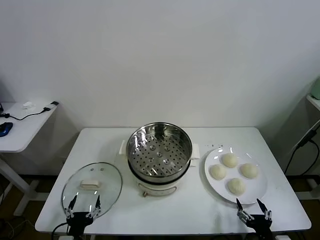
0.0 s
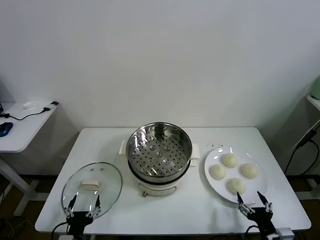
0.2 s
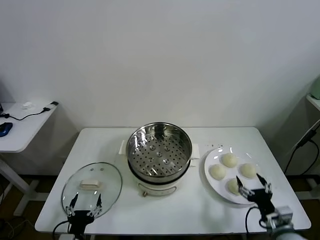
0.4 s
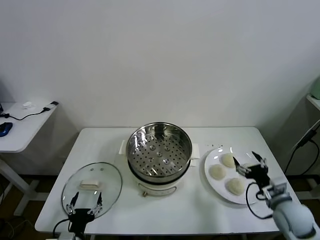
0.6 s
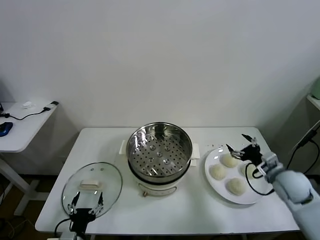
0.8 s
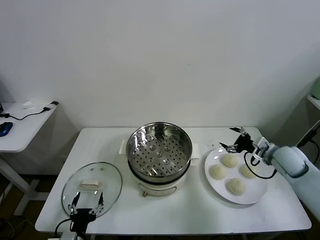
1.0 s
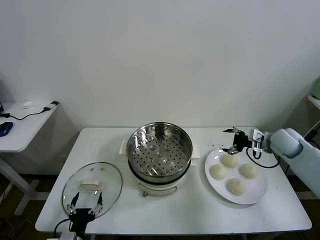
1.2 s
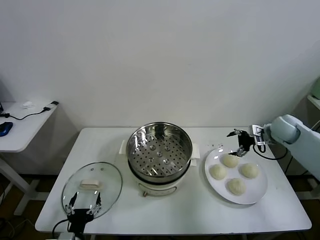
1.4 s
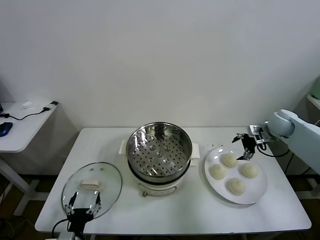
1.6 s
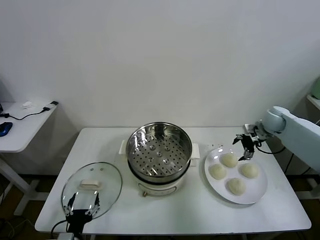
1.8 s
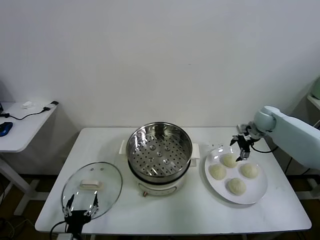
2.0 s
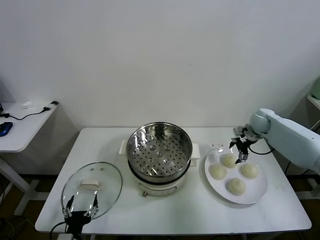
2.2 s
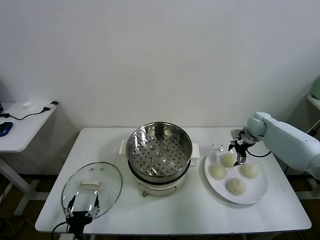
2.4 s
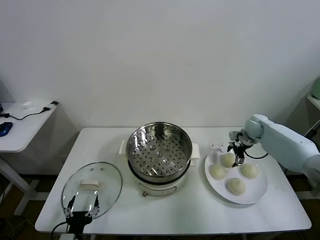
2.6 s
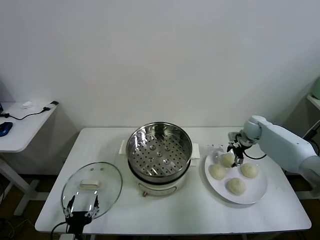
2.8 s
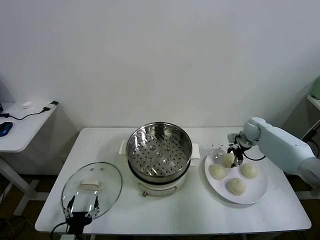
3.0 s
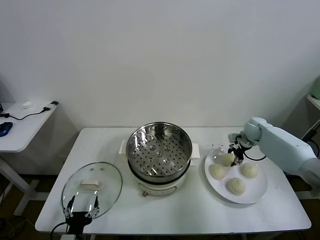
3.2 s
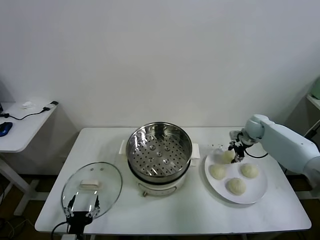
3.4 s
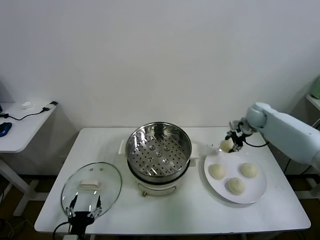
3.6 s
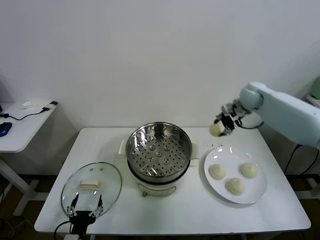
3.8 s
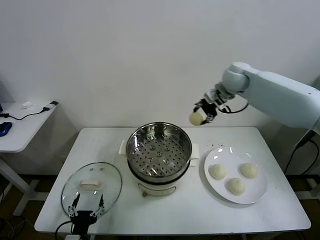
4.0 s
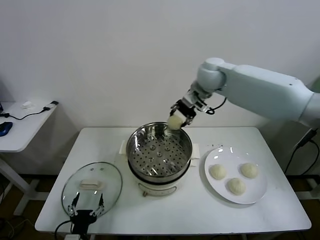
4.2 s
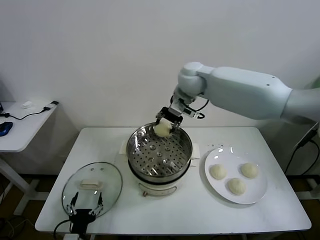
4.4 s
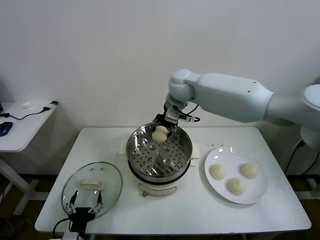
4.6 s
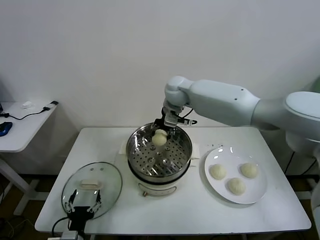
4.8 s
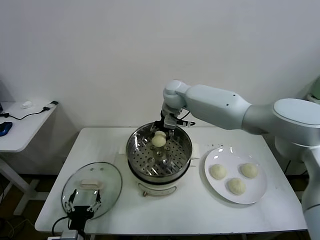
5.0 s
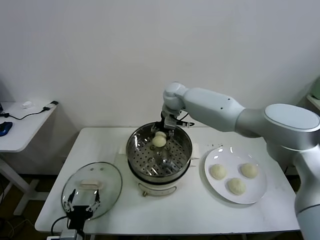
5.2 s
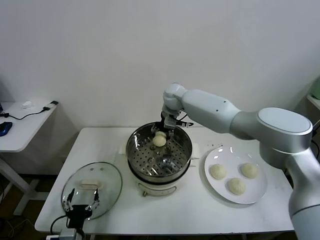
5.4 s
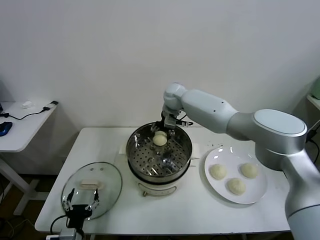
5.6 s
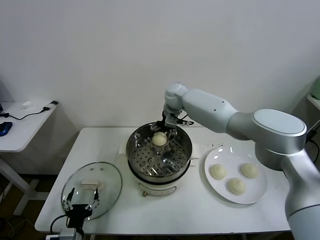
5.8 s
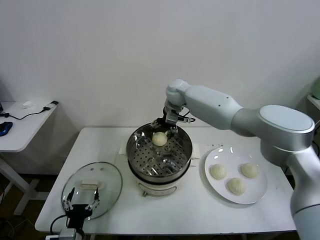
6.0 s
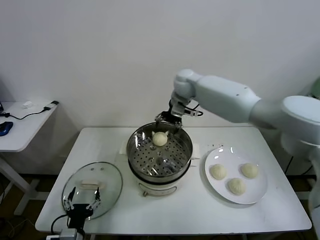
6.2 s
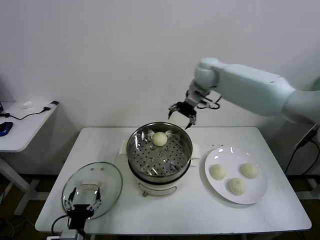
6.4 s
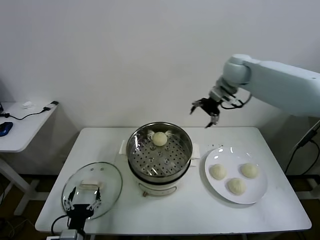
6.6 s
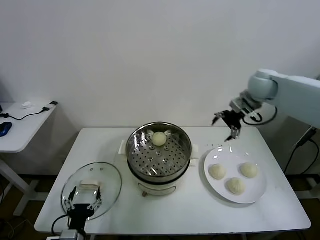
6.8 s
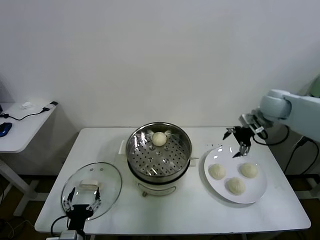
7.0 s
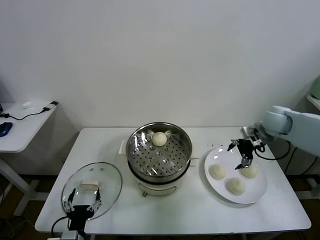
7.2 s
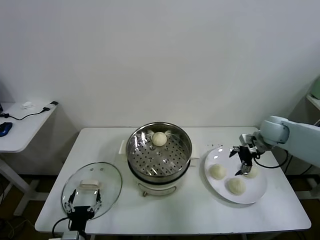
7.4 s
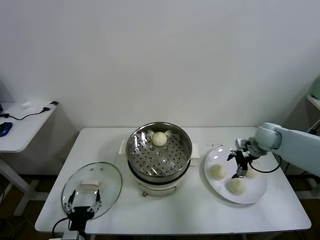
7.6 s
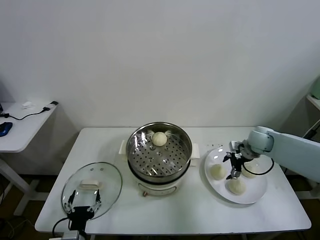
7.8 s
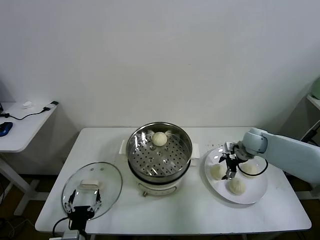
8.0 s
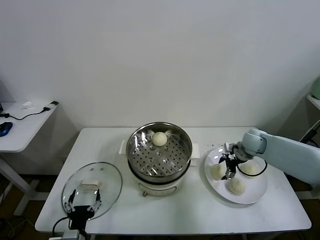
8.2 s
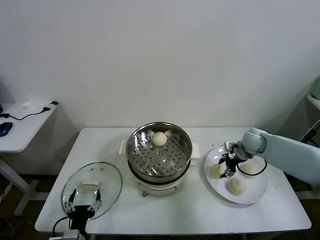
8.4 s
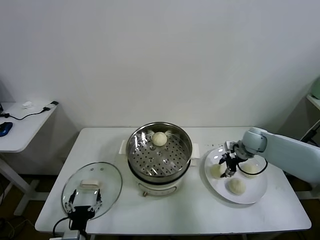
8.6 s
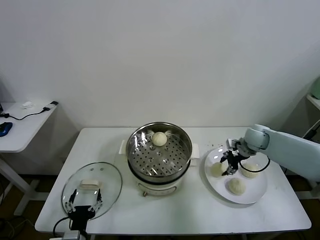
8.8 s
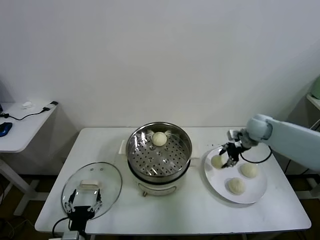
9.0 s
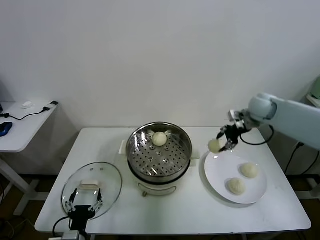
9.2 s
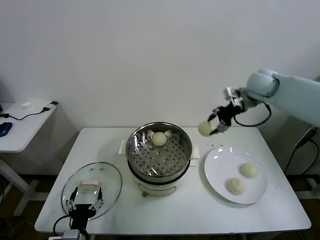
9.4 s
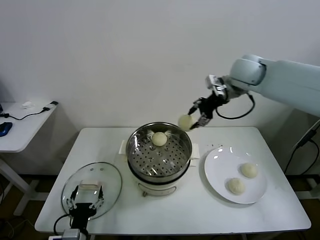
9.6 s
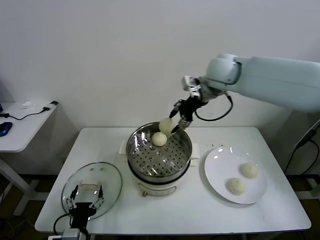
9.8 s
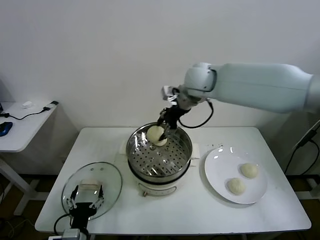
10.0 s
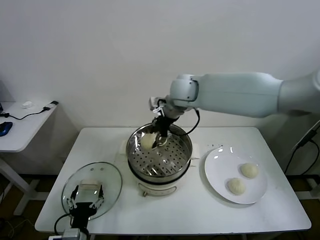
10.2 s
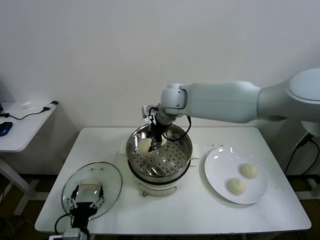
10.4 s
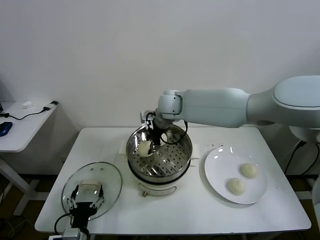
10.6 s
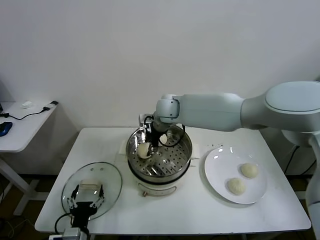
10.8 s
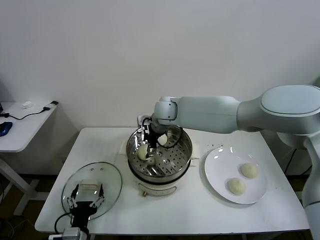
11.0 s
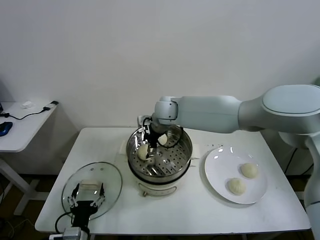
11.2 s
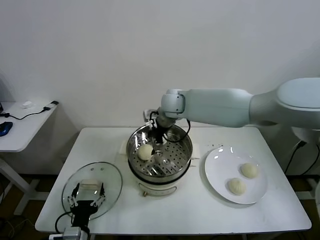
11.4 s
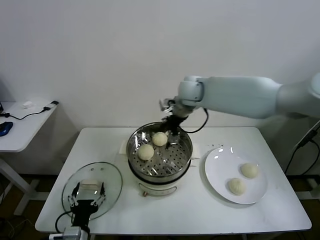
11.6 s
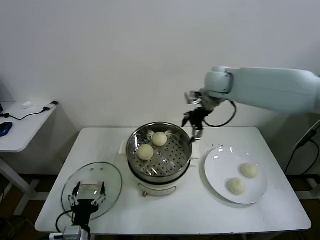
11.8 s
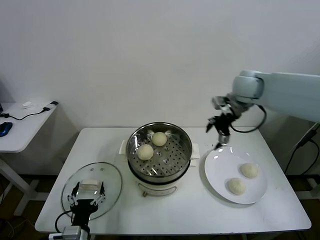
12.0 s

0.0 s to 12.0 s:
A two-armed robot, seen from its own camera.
Task of the whole recording: take steamed baozi put them in steamer.
Step, 0.0 to 3.0 s: Grasp the baozi in the plate with right gripper.
Step, 3.2 to 6.0 s: Place the baozi on the steamer with right gripper.
Step, 6.2 to 8.4 s: Grasp the baozi in the plate with right gripper.
Step, 8.6 to 11.2 s: Place the baozi on the steamer with right gripper.
1.6 to 3.0 s: The right gripper moves downward, approximately 10 cm, and closes.
3.0 to 4.4 s: The right gripper moves to the left and upward, roughly 40 cm.
4.4 to 6.0 s: The right gripper shifts some 10 cm downward and forward, and opens.
6.0 to 7.6 s: The right gripper shifts about 35 cm to the right, downward and backward.
7.6 to 9.0 s: The right gripper moves upward, approximately 5 cm, and closes.
9.0 to 10.4 s: The right gripper shifts roughly 30 cm to the left.
10.4 to 12.0 s: The right gripper goes some 25 cm to the right, and opens.

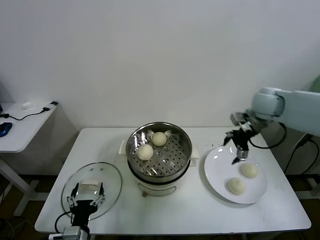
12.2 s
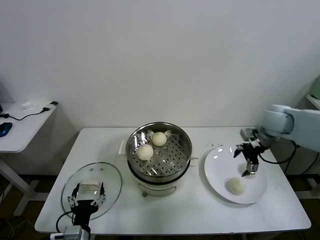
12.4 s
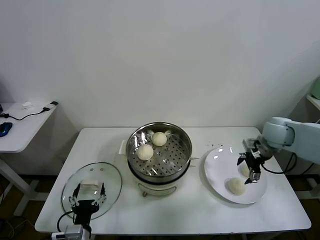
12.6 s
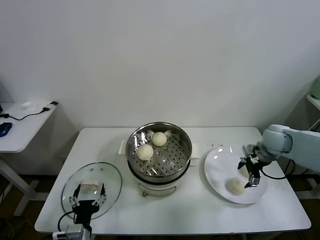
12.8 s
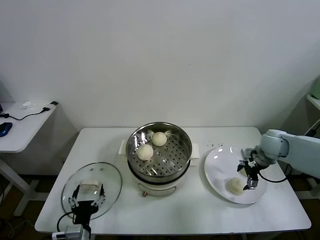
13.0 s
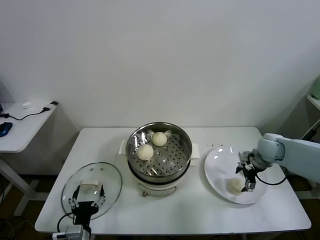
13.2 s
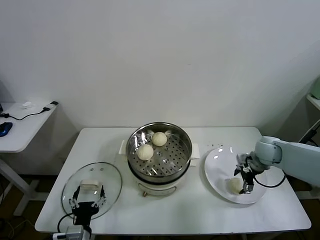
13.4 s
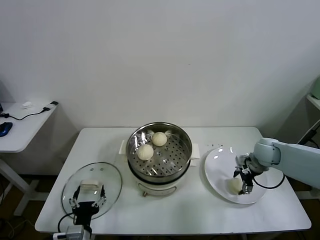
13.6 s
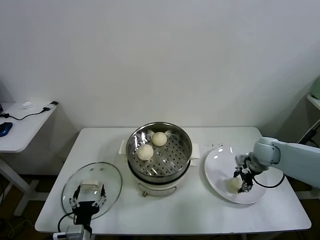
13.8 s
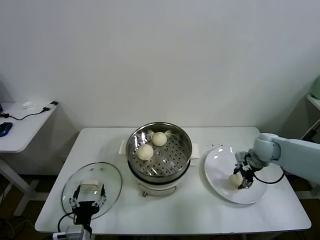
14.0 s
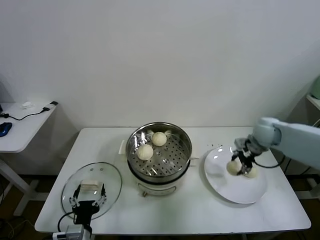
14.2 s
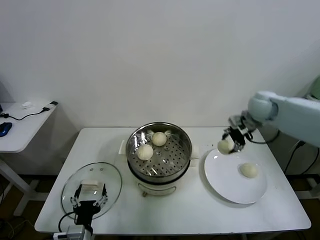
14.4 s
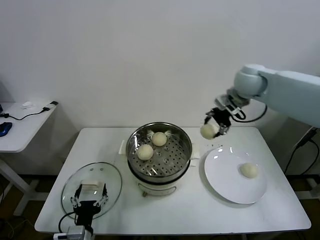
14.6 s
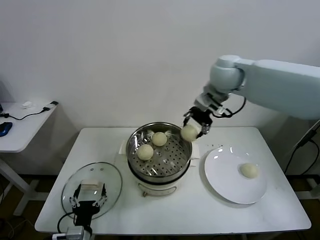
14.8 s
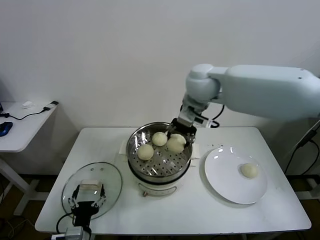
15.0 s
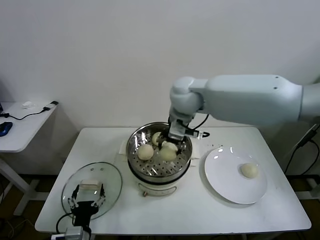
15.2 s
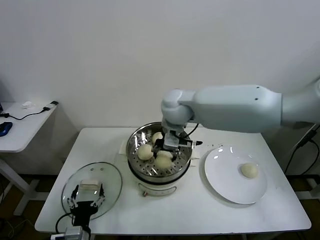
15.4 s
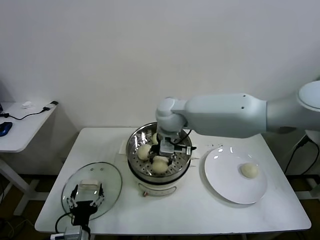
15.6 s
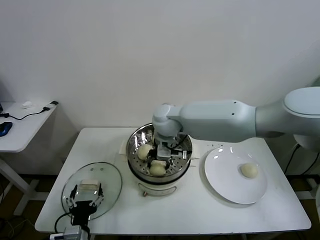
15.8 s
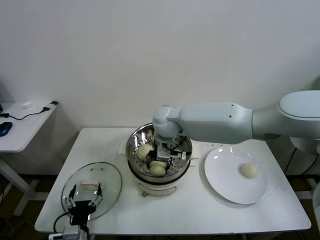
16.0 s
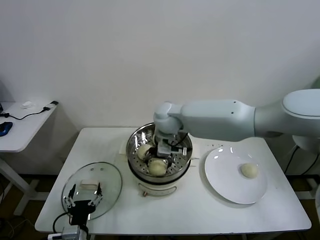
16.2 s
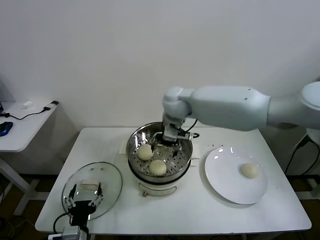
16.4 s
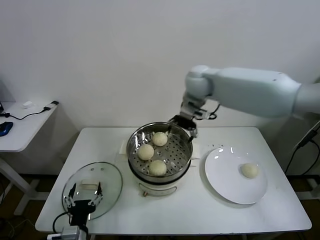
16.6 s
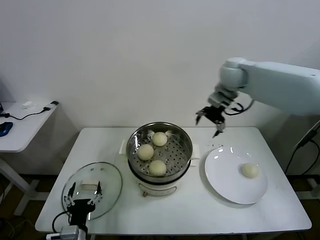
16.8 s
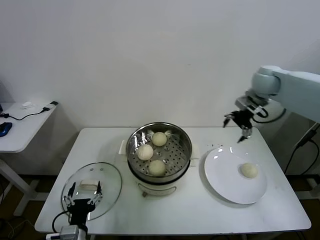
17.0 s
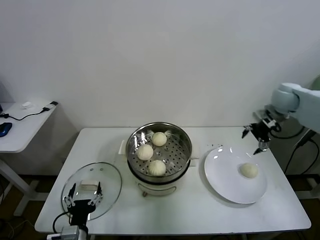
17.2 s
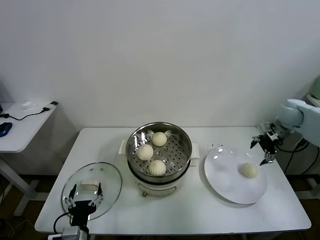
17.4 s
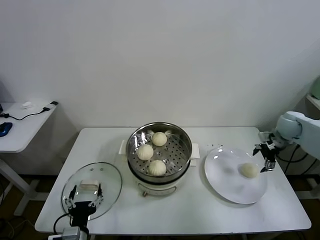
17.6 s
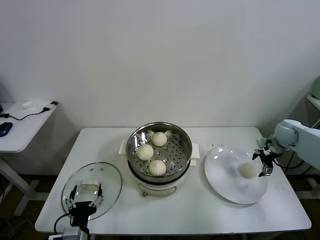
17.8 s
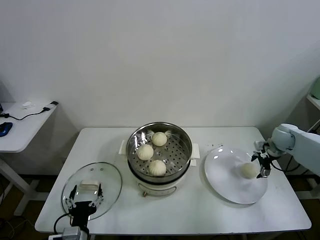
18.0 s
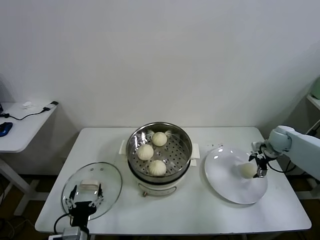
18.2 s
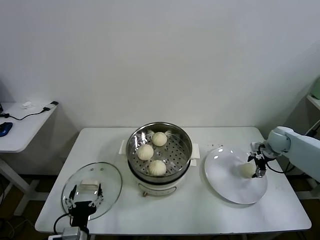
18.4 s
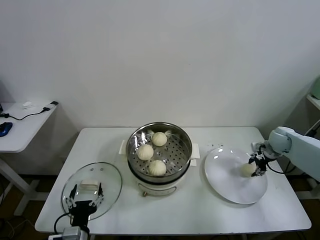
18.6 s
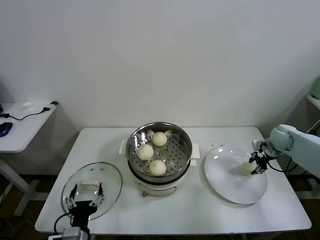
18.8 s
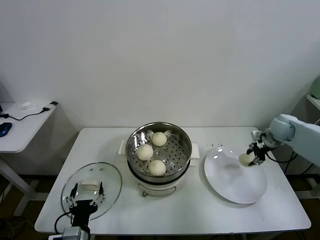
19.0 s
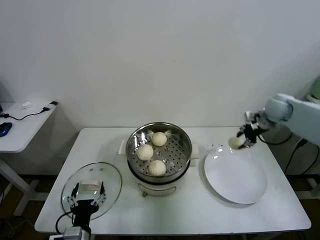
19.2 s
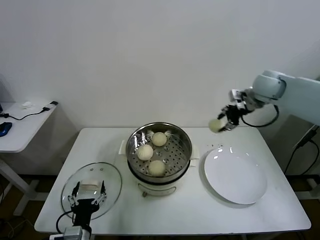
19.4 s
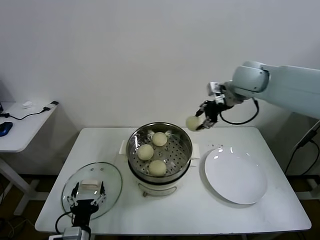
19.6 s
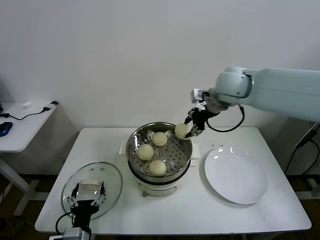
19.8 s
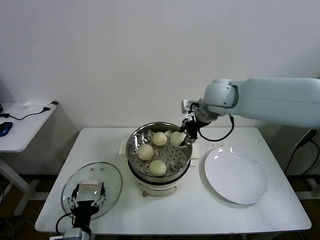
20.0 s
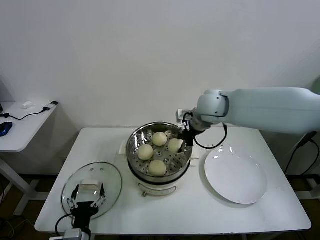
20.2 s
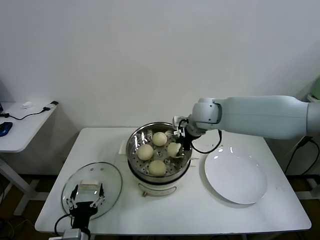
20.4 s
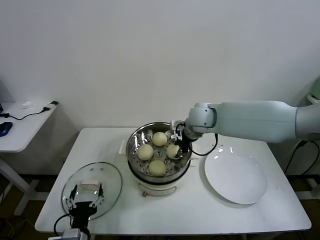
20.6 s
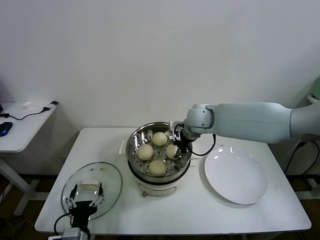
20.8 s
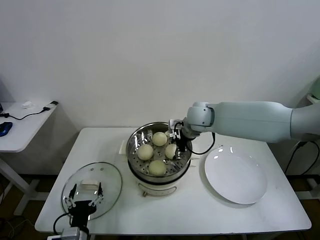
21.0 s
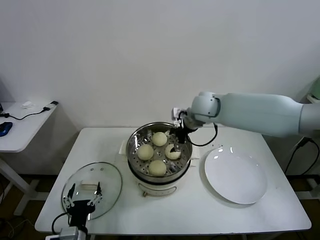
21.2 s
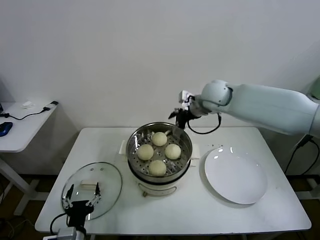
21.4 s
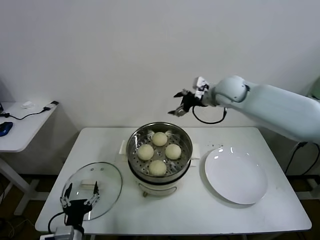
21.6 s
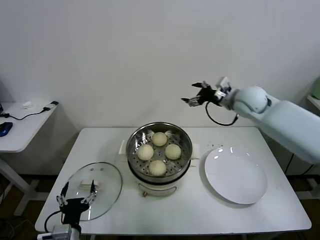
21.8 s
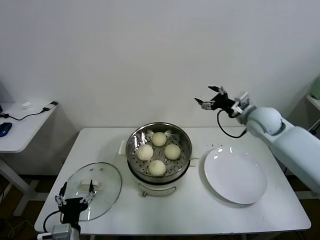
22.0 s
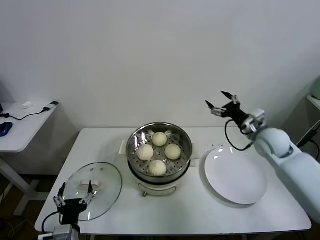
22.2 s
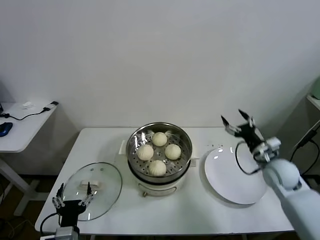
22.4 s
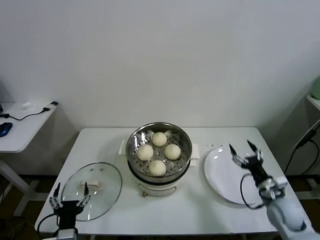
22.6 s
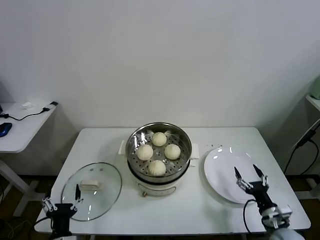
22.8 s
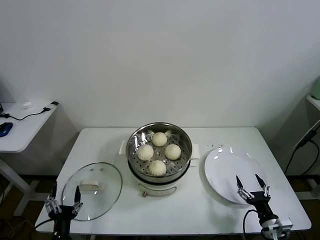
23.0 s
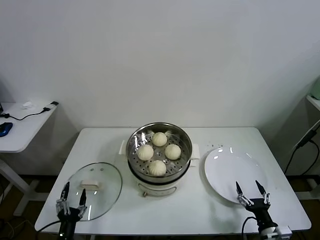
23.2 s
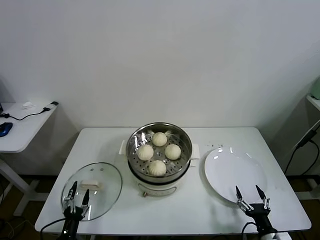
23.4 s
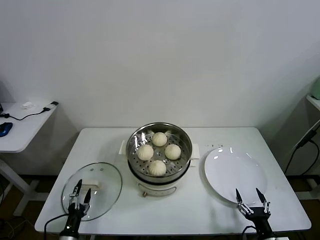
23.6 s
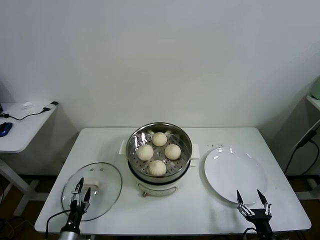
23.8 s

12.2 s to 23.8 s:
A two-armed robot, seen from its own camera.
Task of the whole recording: take steamed baozi put them in steamer.
Step, 12.2 to 13.8 s: Grasp the baozi in the plate with right gripper.
Step, 14.0 to 16.2 s: Place the baozi on the steamer with right gripper.
Step, 16.4 to 18.4 s: Grasp the baozi in the plate with right gripper.
Step, 18.6 to 21.0 s: Place the baozi on the steamer with right gripper.
12.2 to 13.6 s: The right gripper moves downward, approximately 15 cm.
13.6 to 15.0 s: The right gripper goes about 40 cm to the left and upward, and closes up.
15.0 to 16.6 s: The right gripper is displaced forward by approximately 5 cm, travels downward and back again, roughly 15 cm each way, and opens.
16.6 to 18.0 s: The right gripper is displaced to the right and downward by roughly 40 cm.
18.0 to 19.4 s: The right gripper shifts approximately 25 cm upward and to the left, and closes up.
19.4 to 21.0 s: The right gripper travels to the left and downward by approximately 20 cm, and opens its fingers.
21.0 to 22.4 s: The right gripper shifts approximately 30 cm to the right, downward and backward.
22.4 to 23.8 s: The right gripper shifts some 30 cm backward and downward; the left gripper shifts approximately 15 cm downward and to the left.
